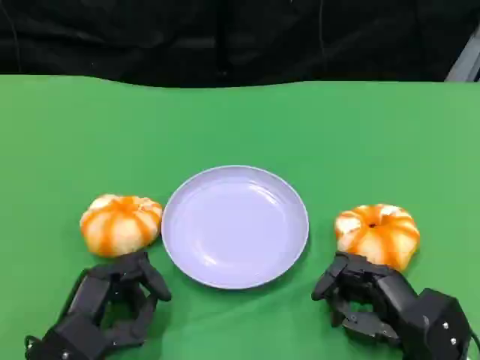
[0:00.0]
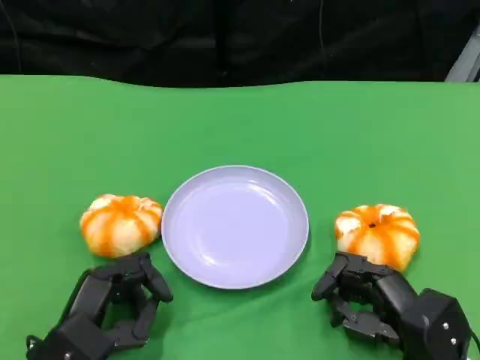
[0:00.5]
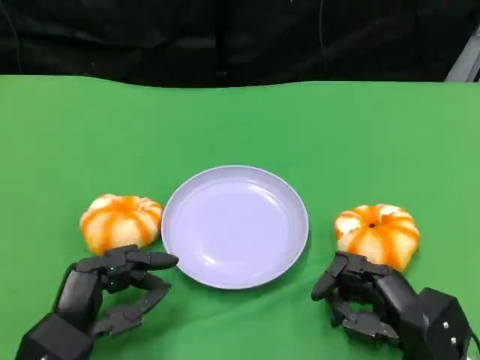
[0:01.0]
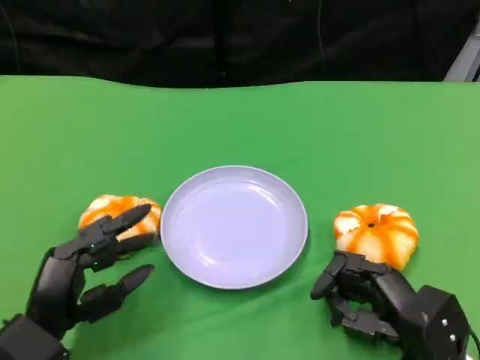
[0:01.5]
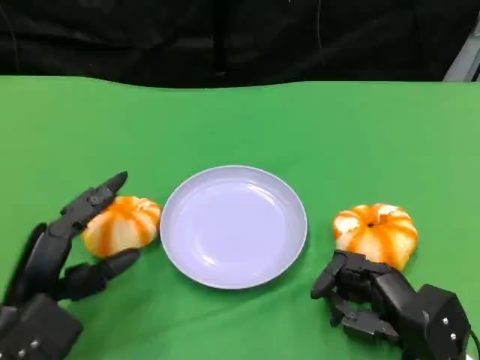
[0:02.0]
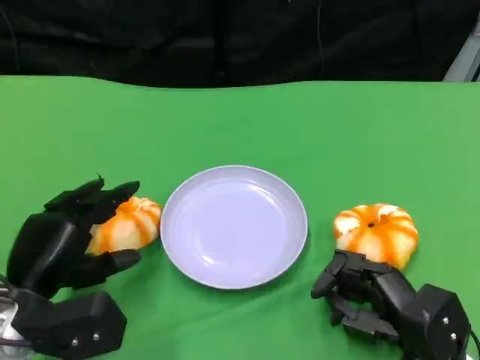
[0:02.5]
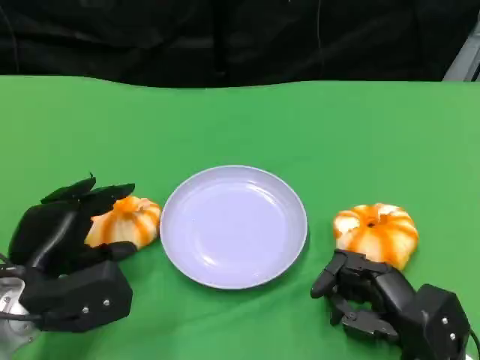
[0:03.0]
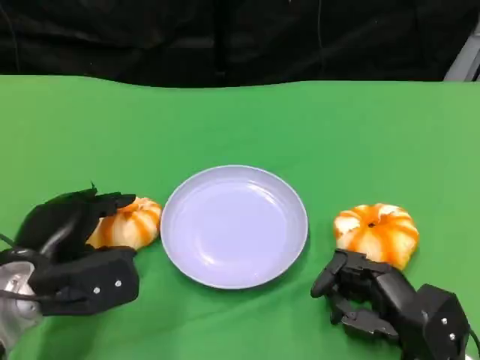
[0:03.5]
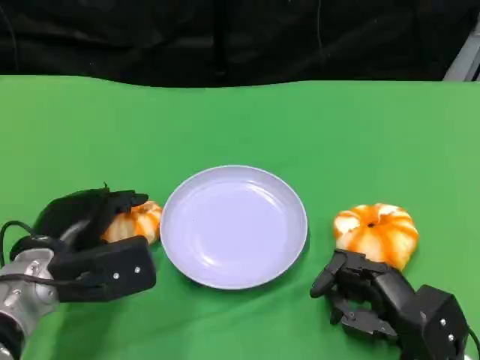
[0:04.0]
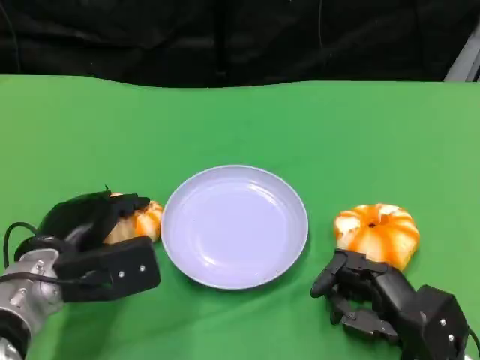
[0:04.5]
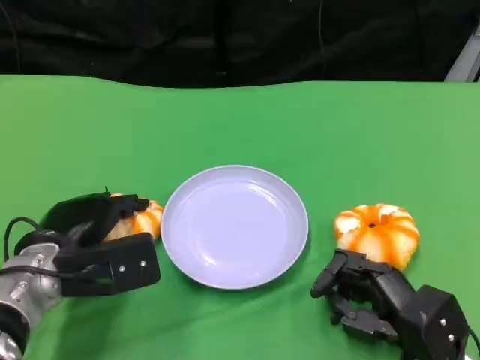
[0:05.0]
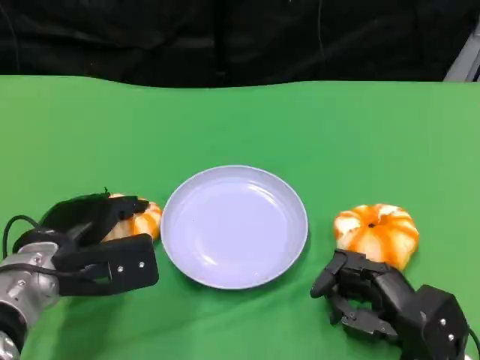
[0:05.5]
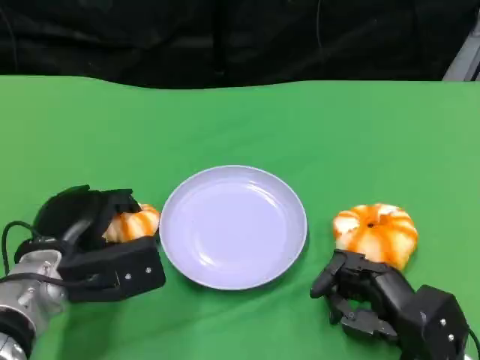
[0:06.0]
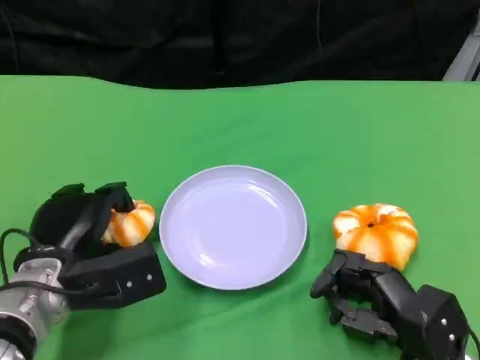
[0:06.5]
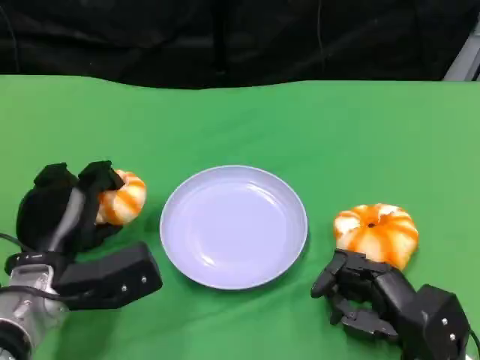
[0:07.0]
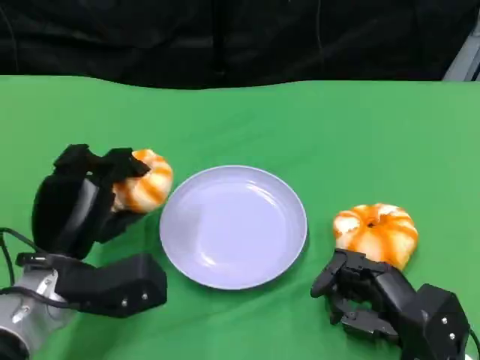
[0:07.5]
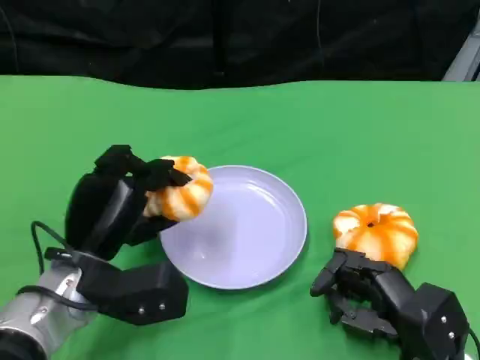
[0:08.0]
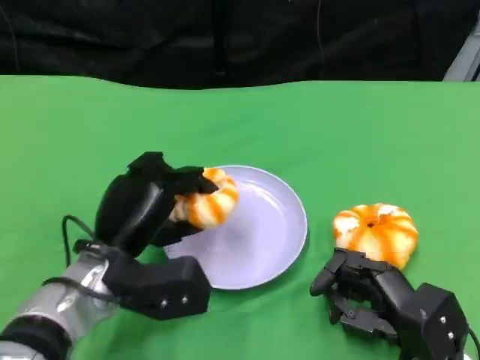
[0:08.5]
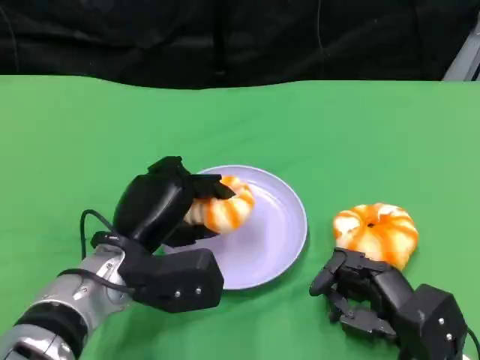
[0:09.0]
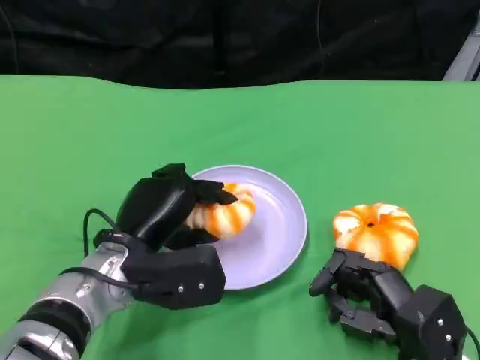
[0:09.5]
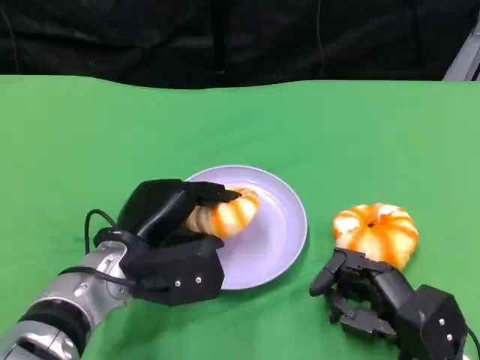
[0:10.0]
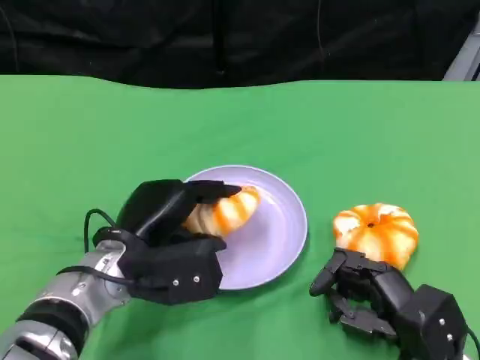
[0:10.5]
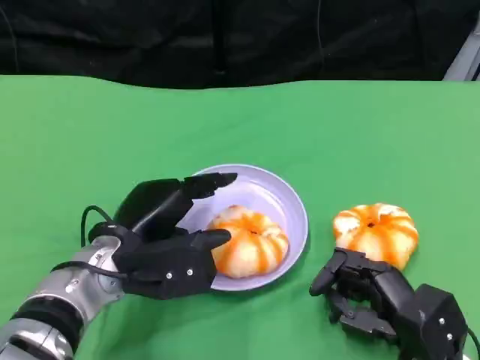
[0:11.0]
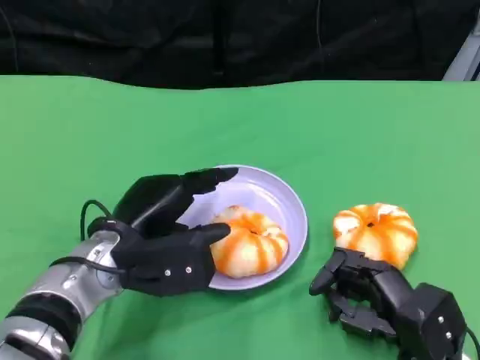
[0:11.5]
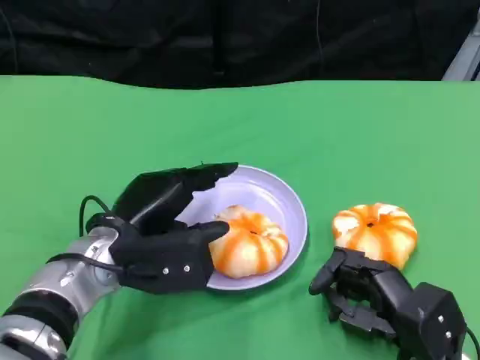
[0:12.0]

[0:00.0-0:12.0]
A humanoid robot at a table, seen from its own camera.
Task of the whole recording: Grasp the bread from the table and place it into the plate.
0:00.0 to 0:02.0: The left hand moves some 5 cm.
0:02.0 to 0:04.0: The left hand heads forward, covering approximately 5 cm.
0:04.0 to 0:06.0: The hands make only small movements.
0:10.0 to 0:12.0: There are only small adjustments of the hands.

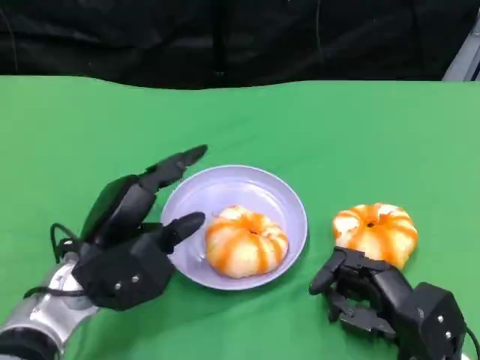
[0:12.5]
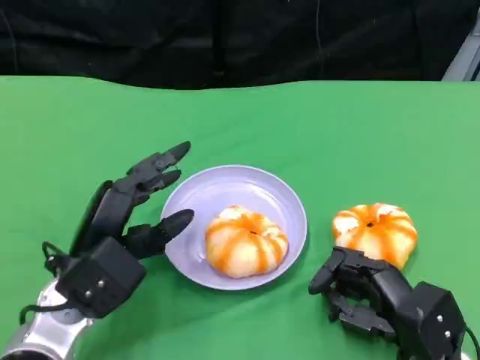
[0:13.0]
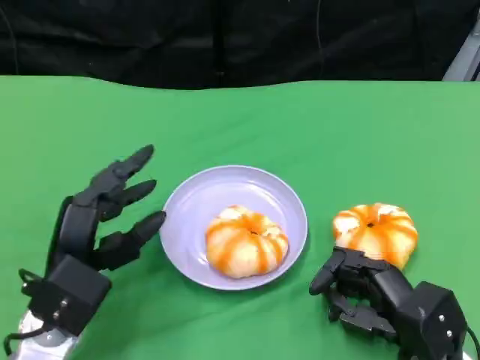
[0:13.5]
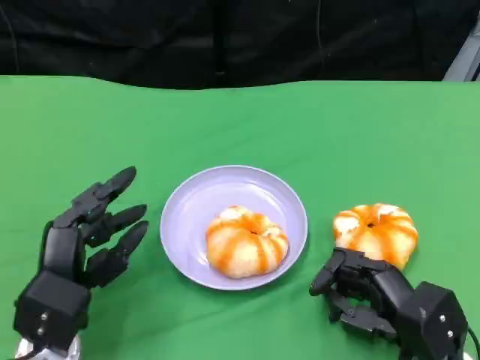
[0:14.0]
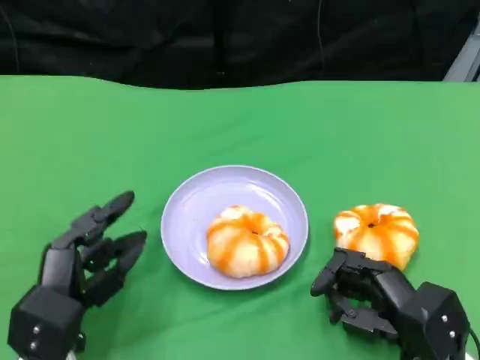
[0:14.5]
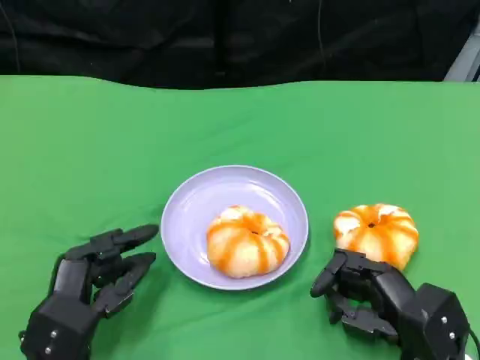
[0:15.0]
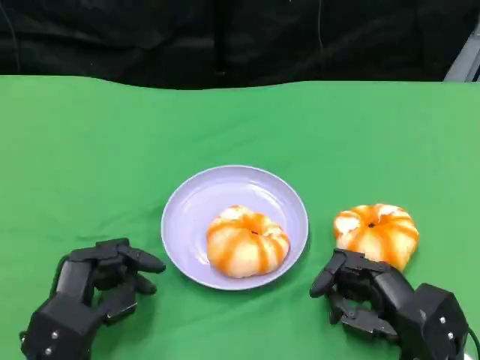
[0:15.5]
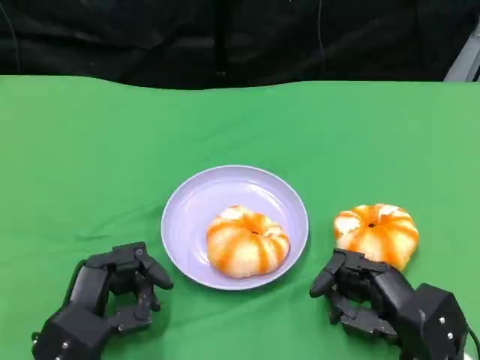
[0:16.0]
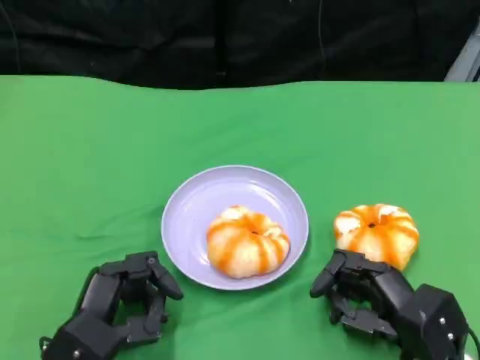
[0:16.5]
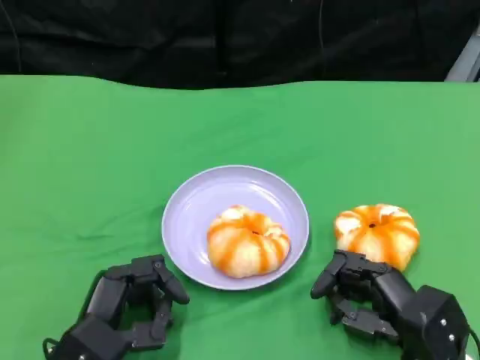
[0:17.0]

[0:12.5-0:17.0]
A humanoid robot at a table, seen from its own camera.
Task of the whole recording: Grasp the bread from the table and place it into the plate.
0:12.5 to 0:14.5: The left hand heads backward, covering roughly 5 cm.
0:14.5 to 0:17.0: There are only small adjustments of the hands.

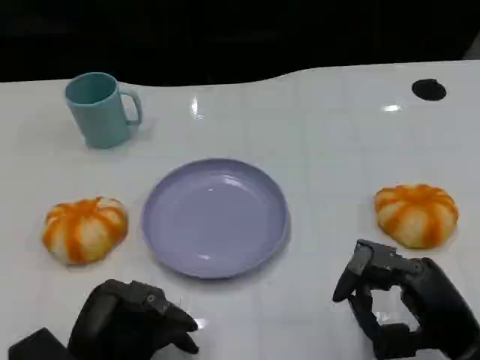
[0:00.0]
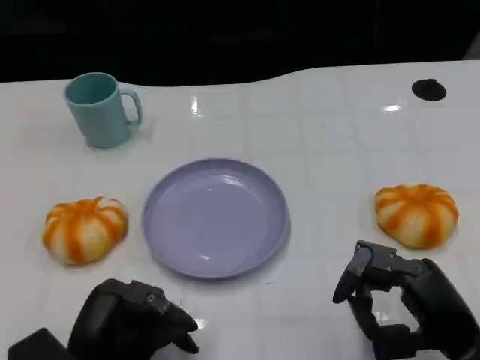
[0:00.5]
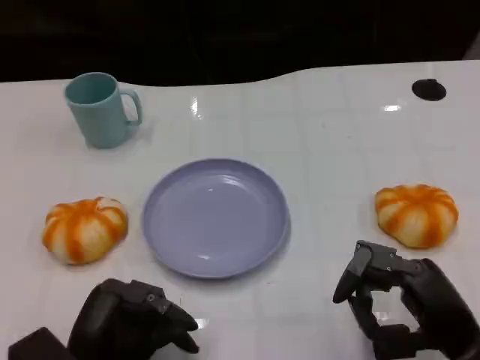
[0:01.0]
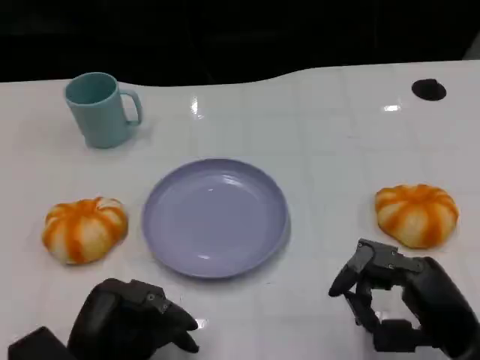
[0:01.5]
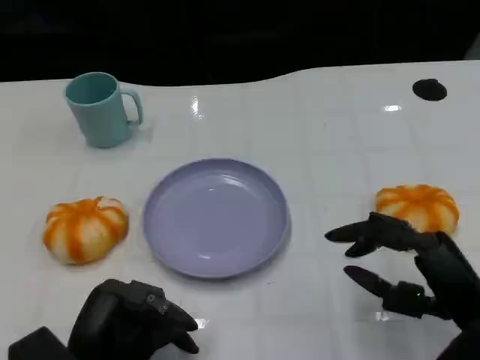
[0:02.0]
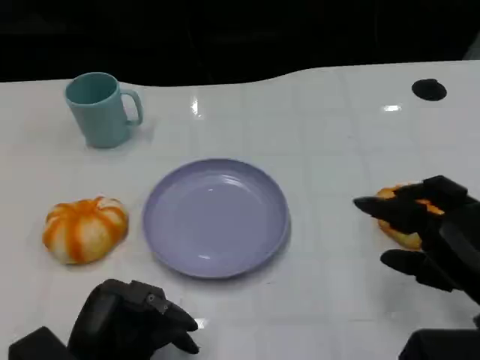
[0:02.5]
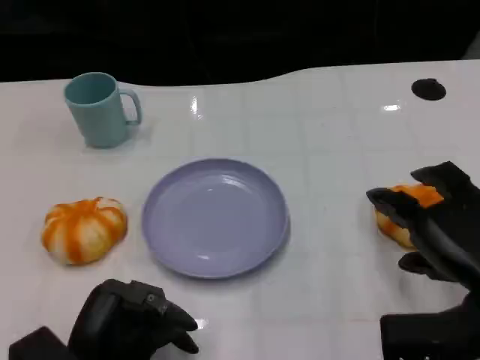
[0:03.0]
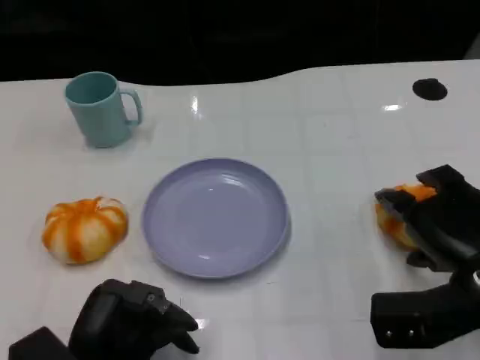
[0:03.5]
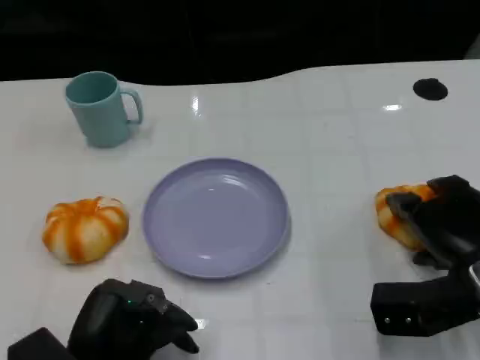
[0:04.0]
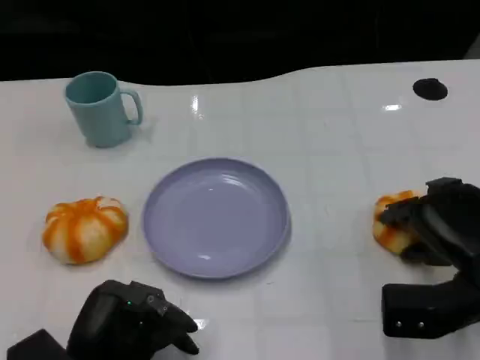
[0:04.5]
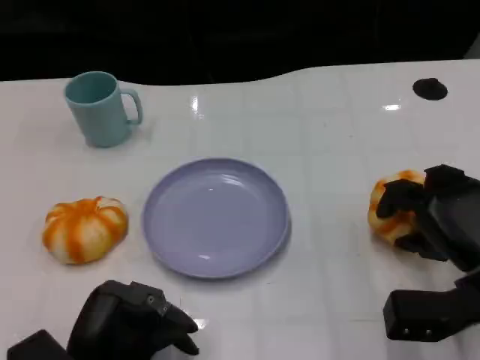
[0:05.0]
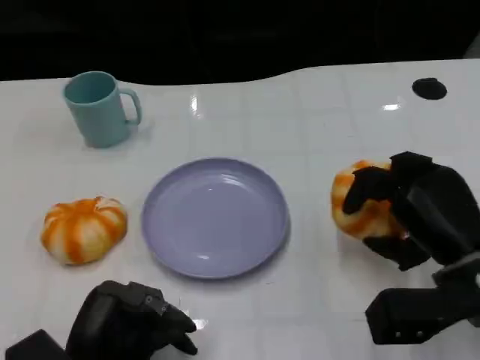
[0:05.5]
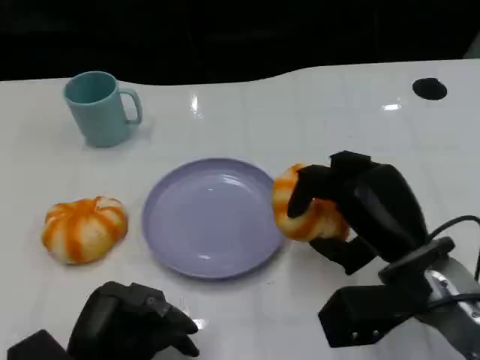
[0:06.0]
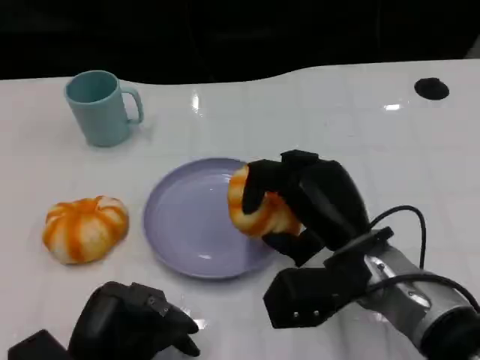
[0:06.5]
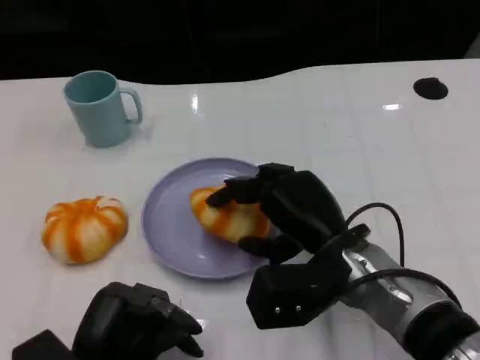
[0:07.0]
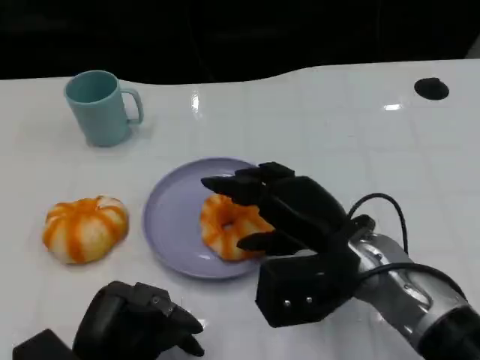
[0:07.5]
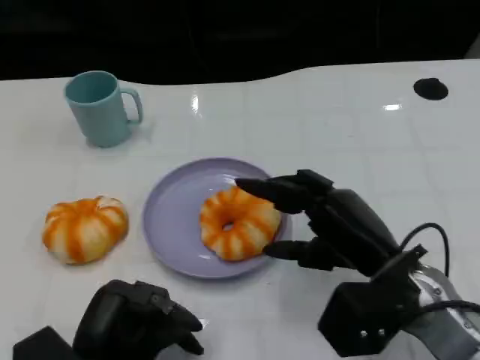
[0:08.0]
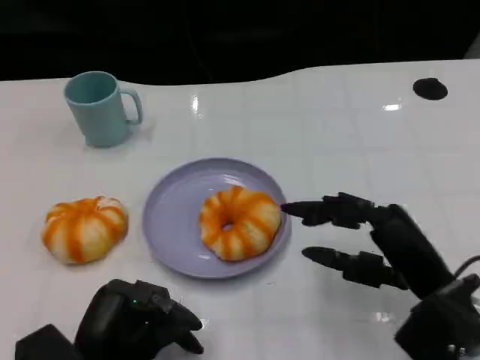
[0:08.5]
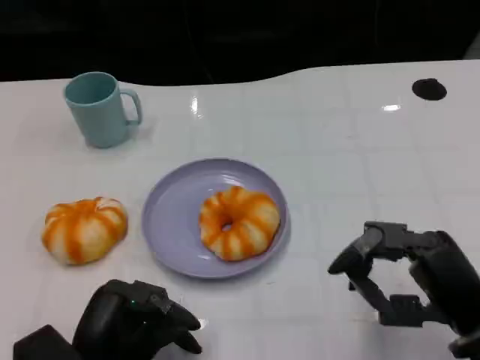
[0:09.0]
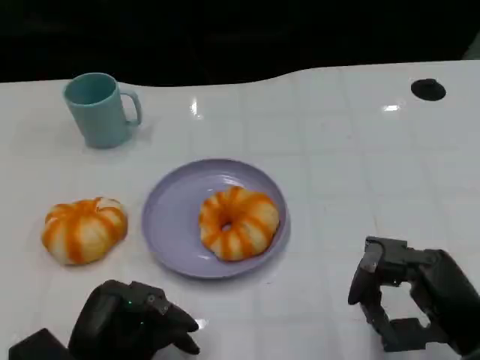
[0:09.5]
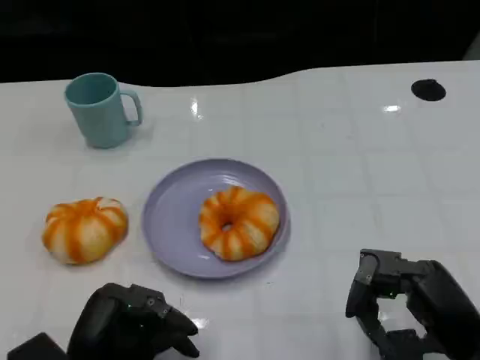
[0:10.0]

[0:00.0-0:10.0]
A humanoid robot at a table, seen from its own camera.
Task of the whole recording: Grasp the bread from the table and place it into the plate.
0:00.0 to 0:02.0: The hands stay close to where they were, moving slightly.
0:02.0 to 0:04.0: The right hand moves forward, about 5 cm.
0:04.0 to 0:06.0: The right hand heads to the left, covering some 5 cm.
0:08.0 to 0:10.0: The right hand moves backward and to the right, roughly 10 cm.
